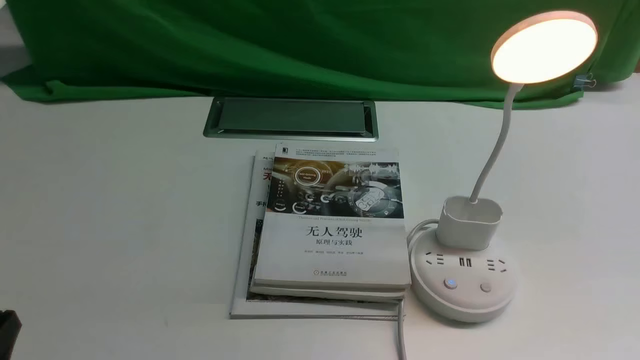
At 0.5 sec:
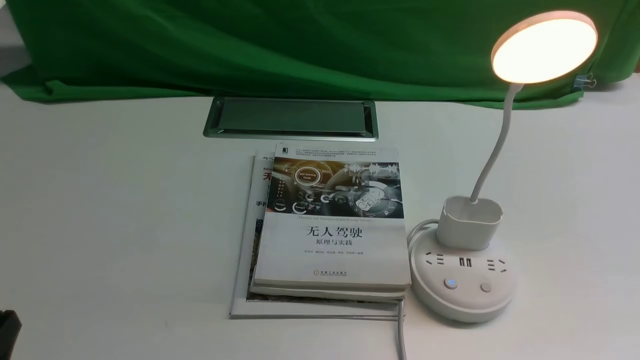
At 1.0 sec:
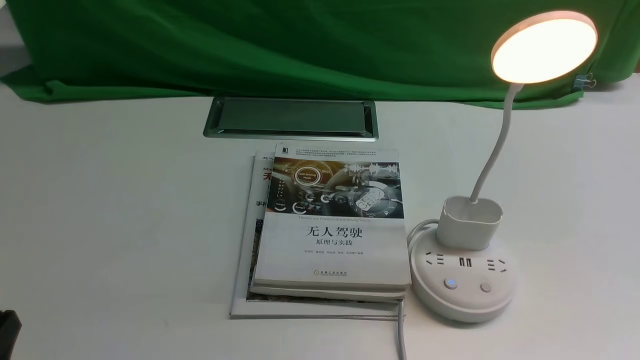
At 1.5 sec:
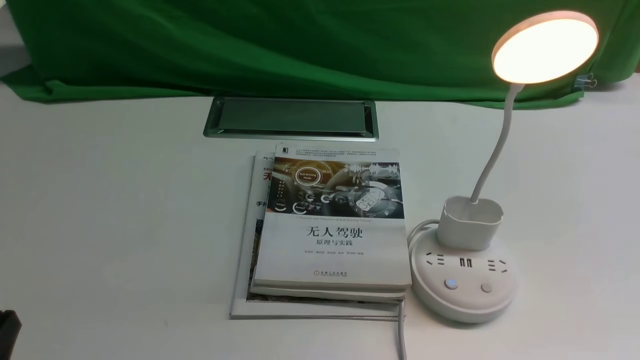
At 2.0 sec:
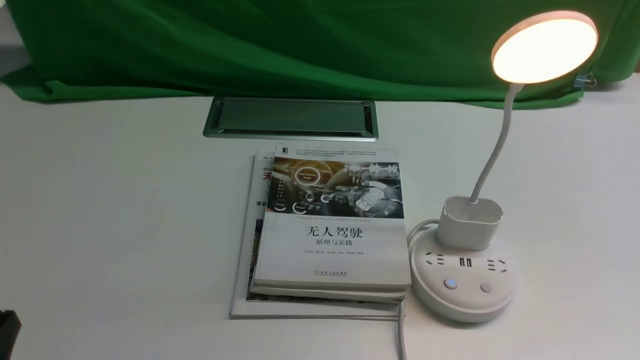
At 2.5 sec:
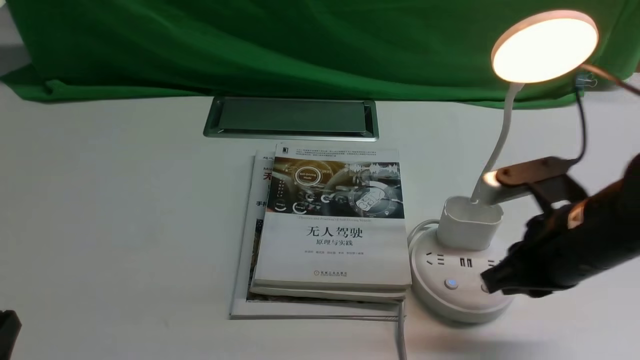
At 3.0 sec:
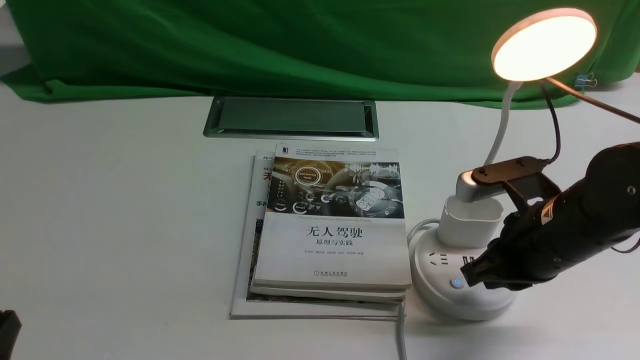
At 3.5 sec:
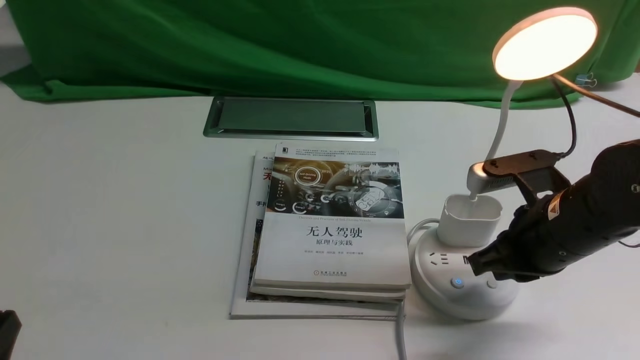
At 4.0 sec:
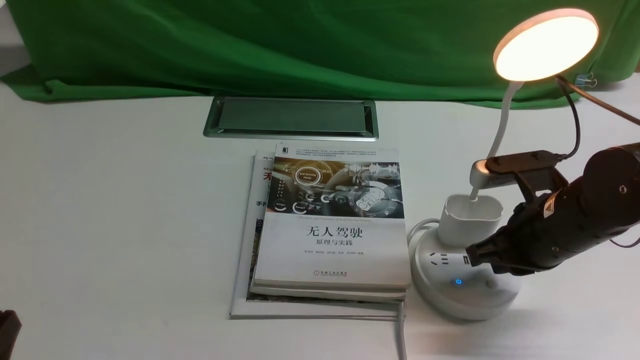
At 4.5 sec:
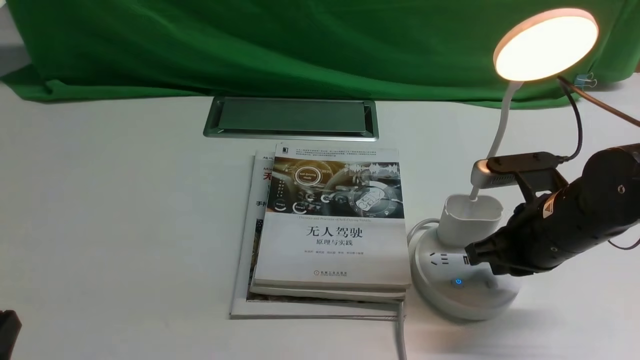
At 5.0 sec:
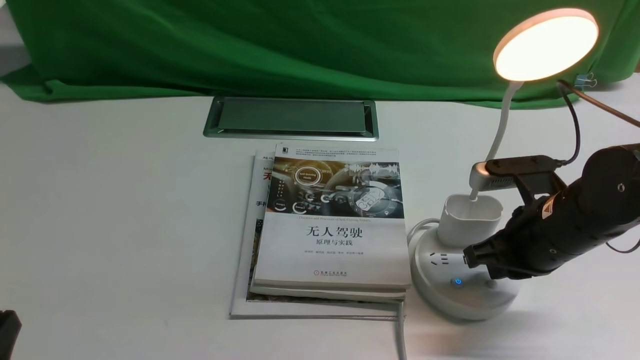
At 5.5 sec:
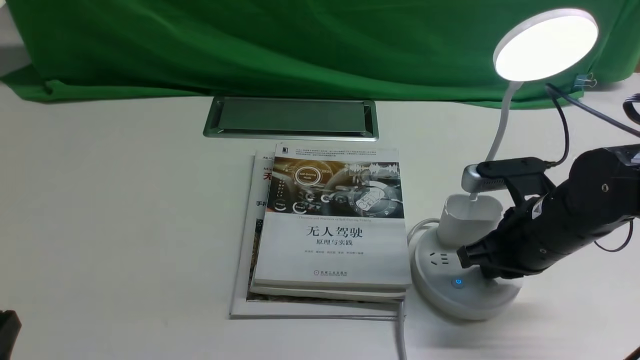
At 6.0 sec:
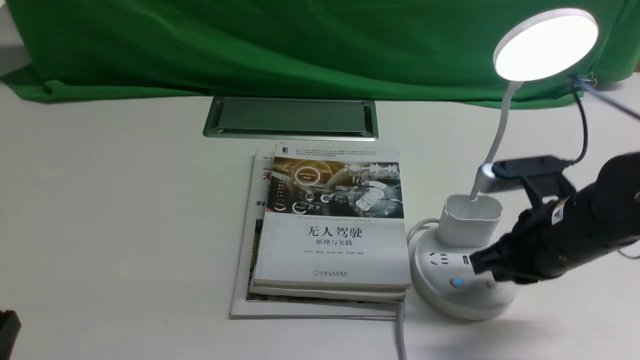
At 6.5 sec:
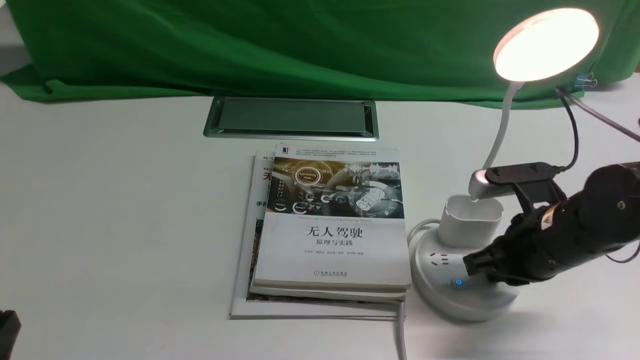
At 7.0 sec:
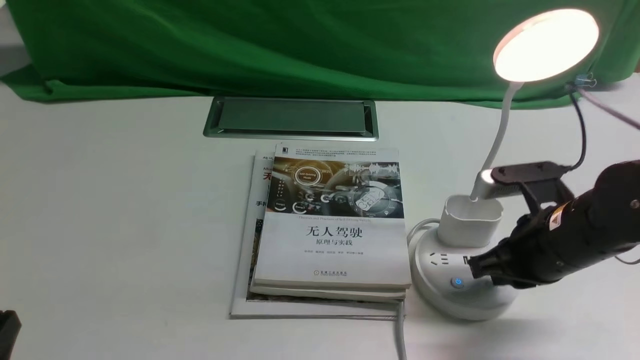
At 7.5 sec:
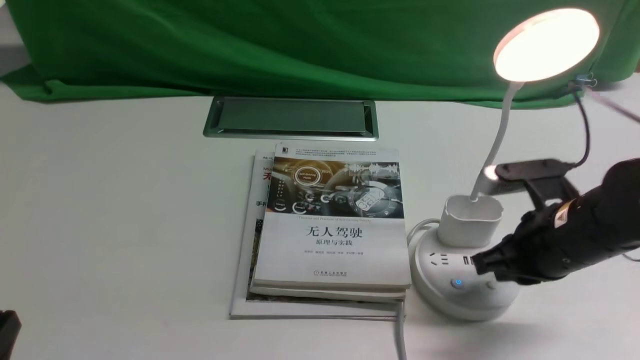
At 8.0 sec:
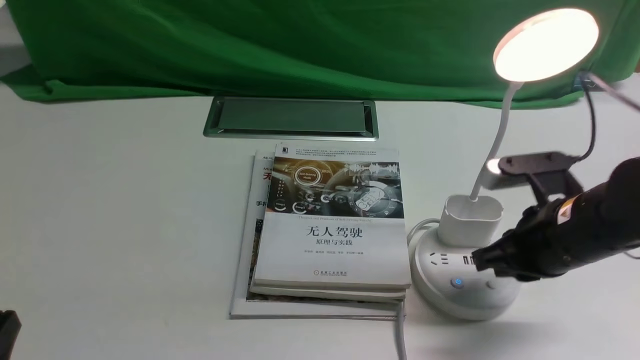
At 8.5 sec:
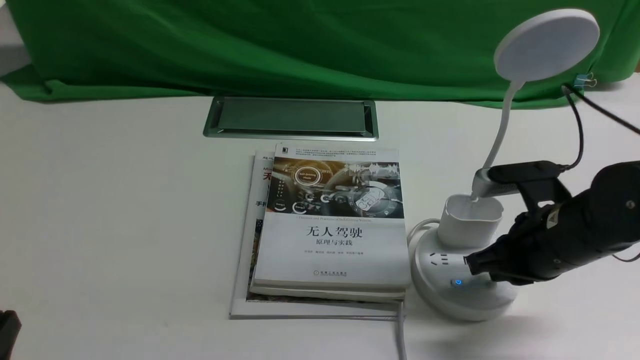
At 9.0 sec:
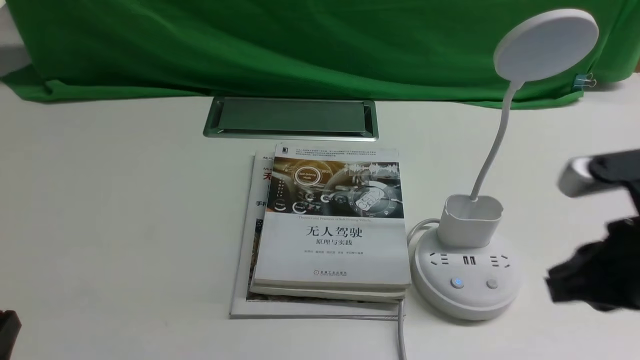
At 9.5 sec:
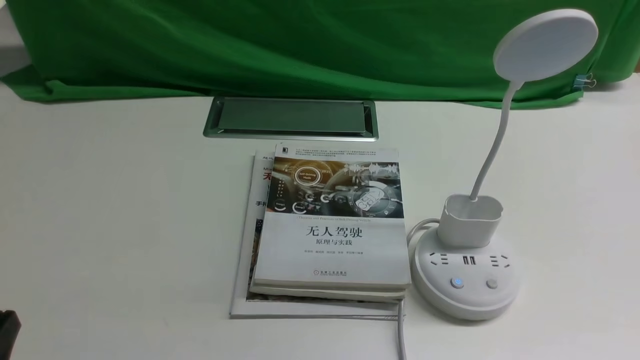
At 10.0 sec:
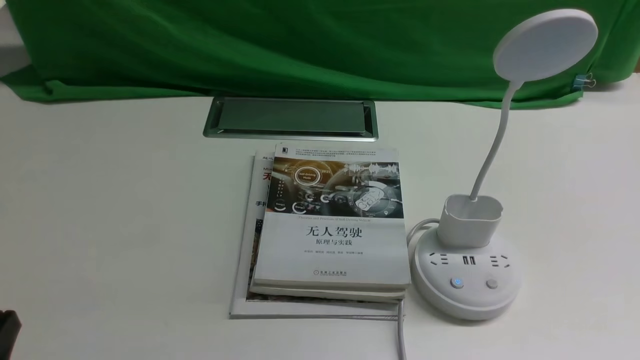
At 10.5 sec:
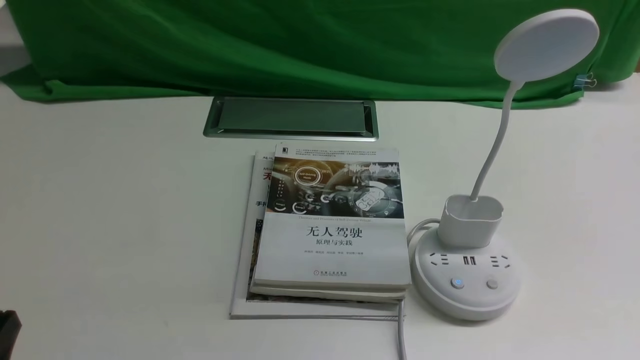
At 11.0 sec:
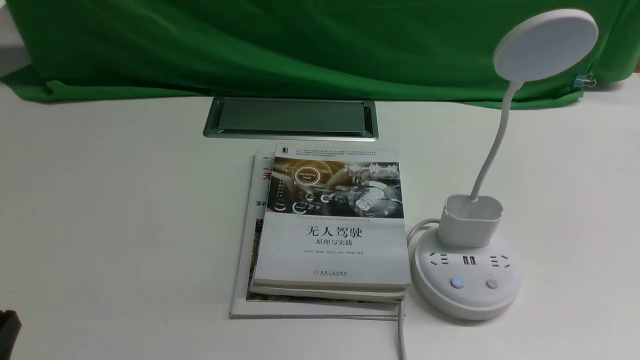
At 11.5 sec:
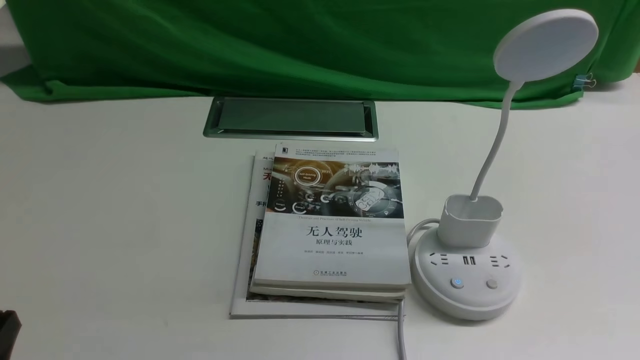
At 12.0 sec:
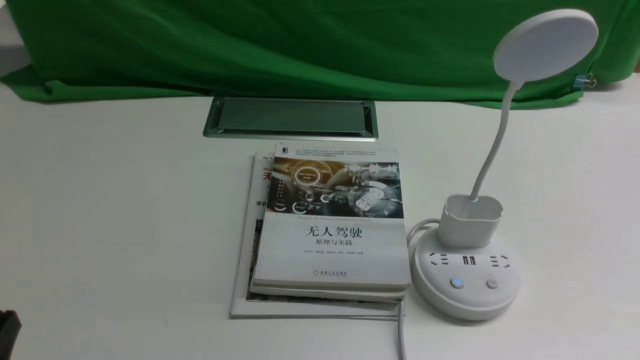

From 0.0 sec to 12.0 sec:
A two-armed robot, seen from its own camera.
Task of the whole recording: turn off the desk lamp on the white desktop by hand.
Step, from 0.0 sec to 8.5 sec: use the right arm to press the button switch on the lamp holder.
From 2.0 sec to 4.0 sec: The right gripper goes approximately 20 cm forward, downward and to the left.
From 4.0 sec to 6.0 sec: Both grippers stay about where they are.
From 6.0 sec to 8.0 sec: The grippers move only a little.
From 8.0 sec to 10.0 sec: The right gripper heads backward and to the right, covering roughly 25 cm.
